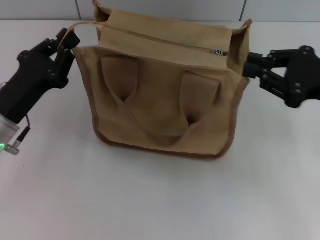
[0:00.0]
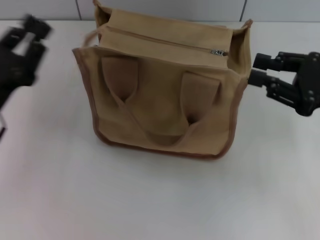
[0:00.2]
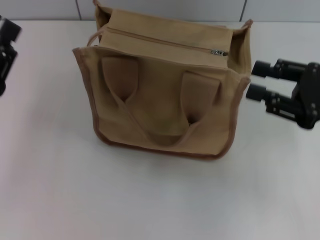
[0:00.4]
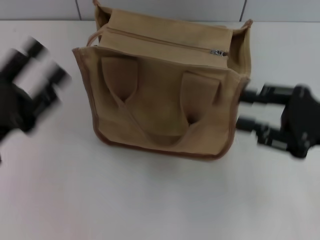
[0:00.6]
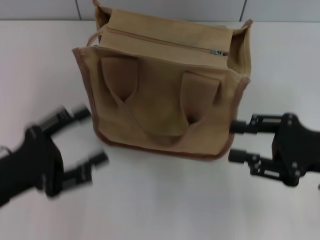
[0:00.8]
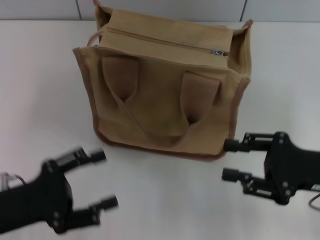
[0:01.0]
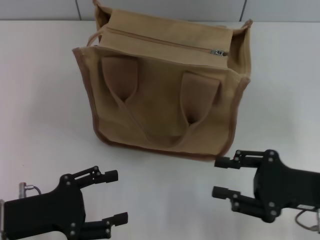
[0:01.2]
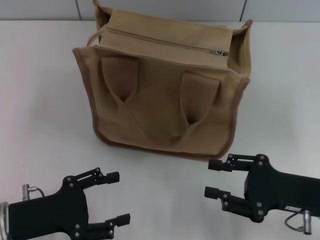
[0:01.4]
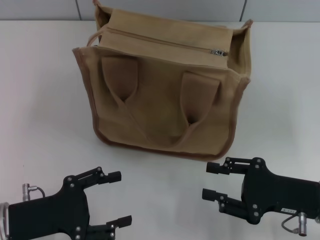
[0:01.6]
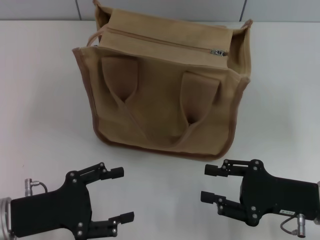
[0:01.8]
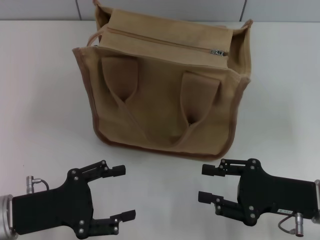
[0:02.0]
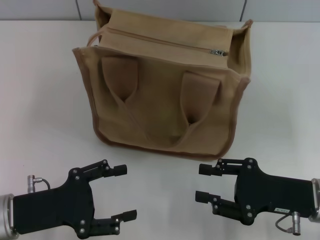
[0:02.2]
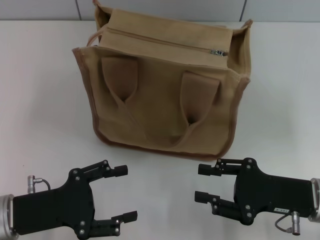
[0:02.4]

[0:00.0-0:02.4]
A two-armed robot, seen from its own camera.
0:00.0 to 0:01.2: The right gripper shifts approximately 10 cm downward and backward, and opens up. The left gripper travels backward by roughly 10 cm, and opens up.
0:01.2 to 0:02.4: The grippers make only small movements.

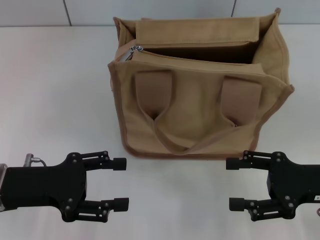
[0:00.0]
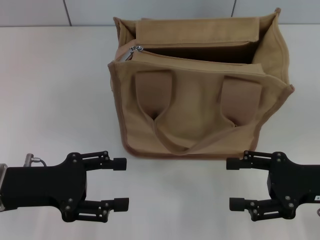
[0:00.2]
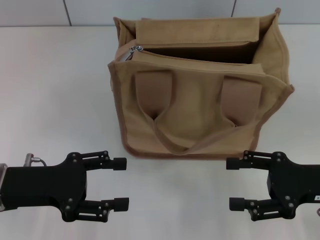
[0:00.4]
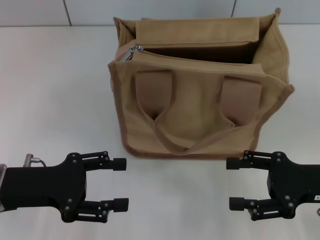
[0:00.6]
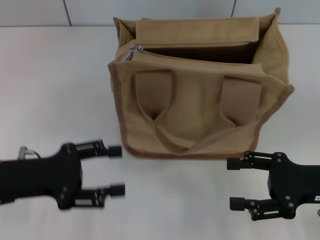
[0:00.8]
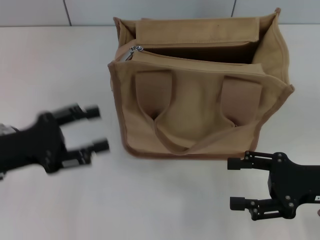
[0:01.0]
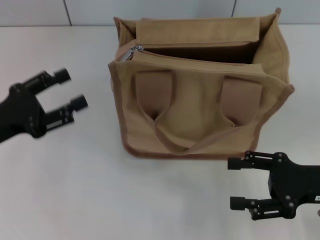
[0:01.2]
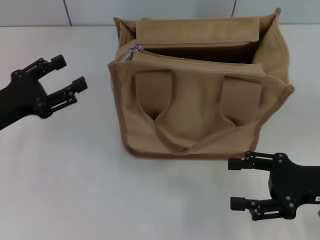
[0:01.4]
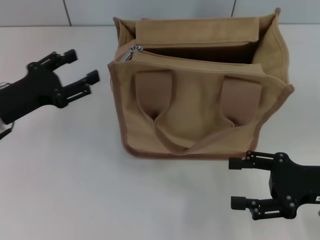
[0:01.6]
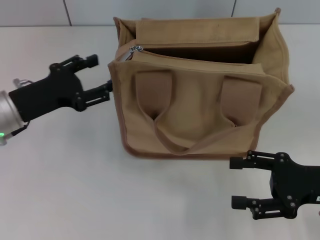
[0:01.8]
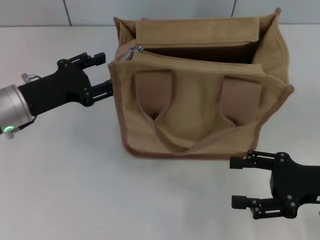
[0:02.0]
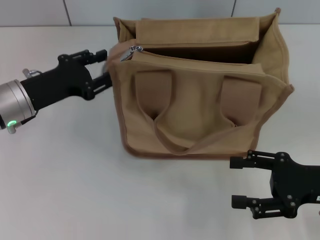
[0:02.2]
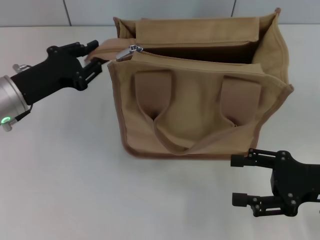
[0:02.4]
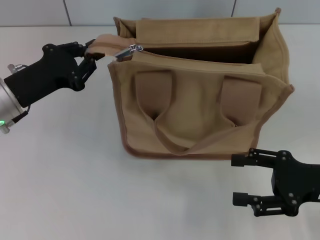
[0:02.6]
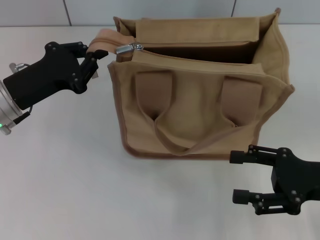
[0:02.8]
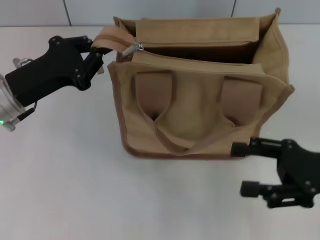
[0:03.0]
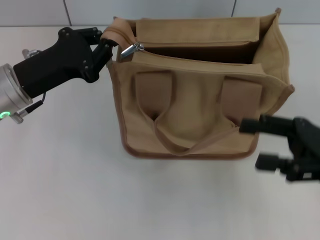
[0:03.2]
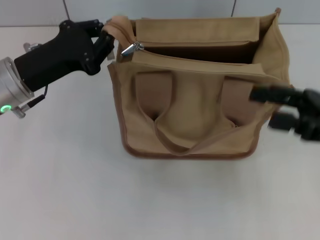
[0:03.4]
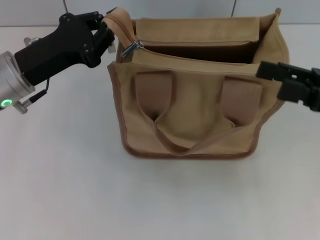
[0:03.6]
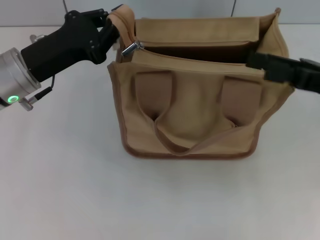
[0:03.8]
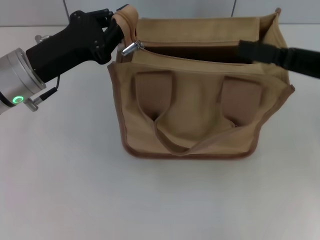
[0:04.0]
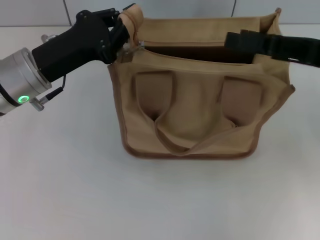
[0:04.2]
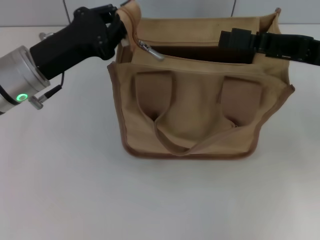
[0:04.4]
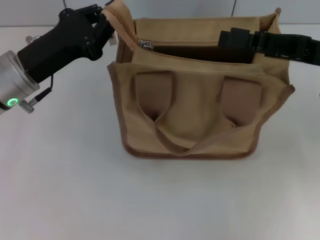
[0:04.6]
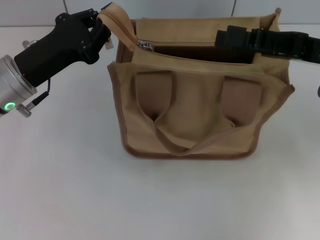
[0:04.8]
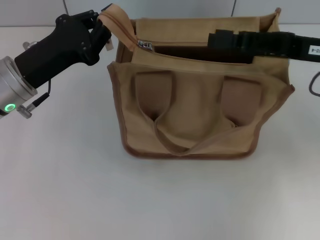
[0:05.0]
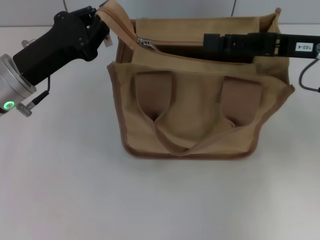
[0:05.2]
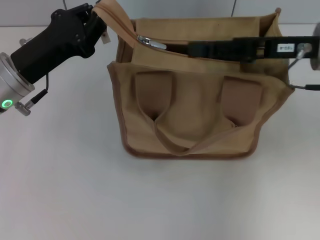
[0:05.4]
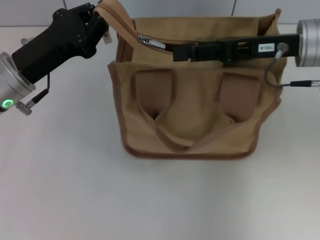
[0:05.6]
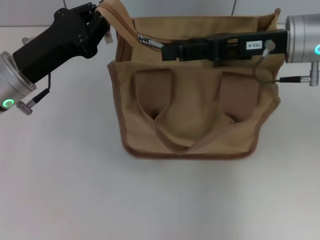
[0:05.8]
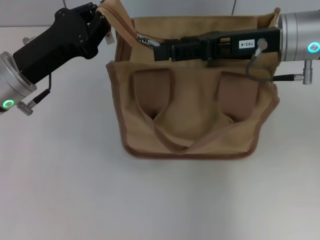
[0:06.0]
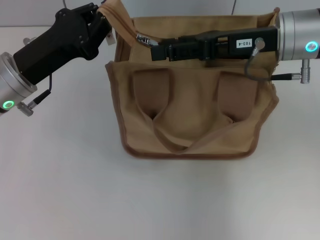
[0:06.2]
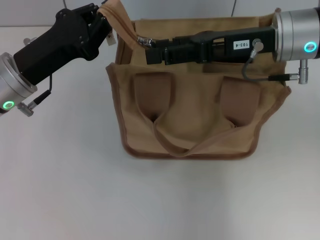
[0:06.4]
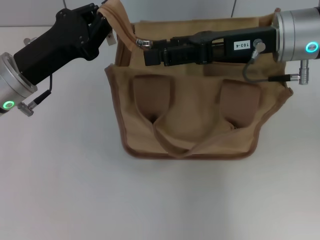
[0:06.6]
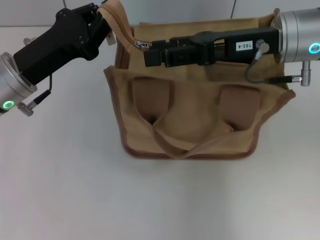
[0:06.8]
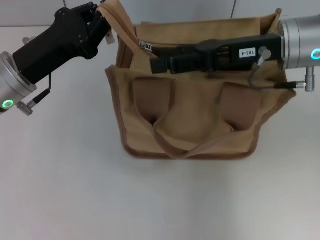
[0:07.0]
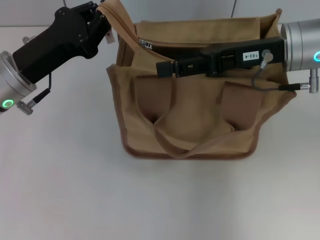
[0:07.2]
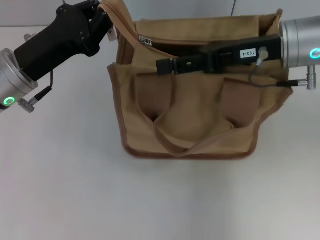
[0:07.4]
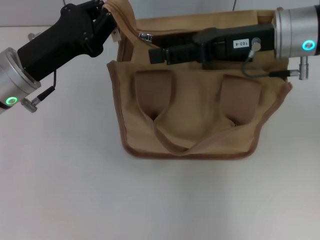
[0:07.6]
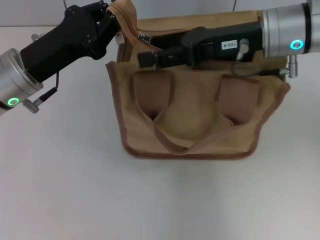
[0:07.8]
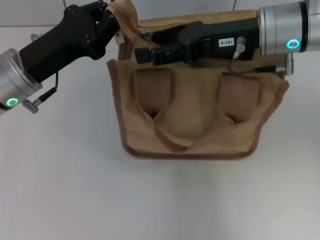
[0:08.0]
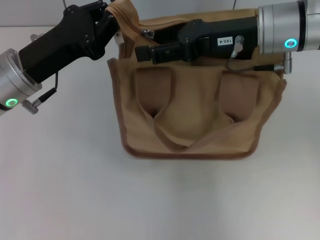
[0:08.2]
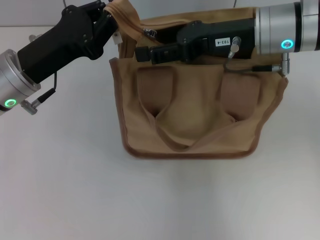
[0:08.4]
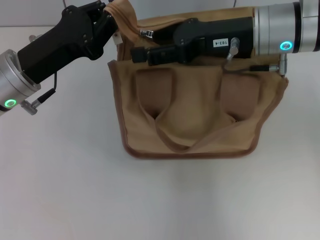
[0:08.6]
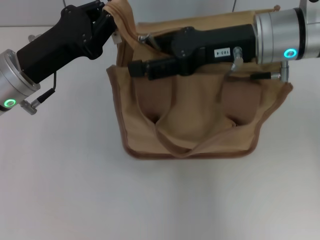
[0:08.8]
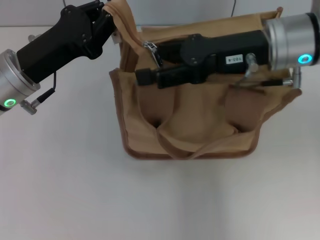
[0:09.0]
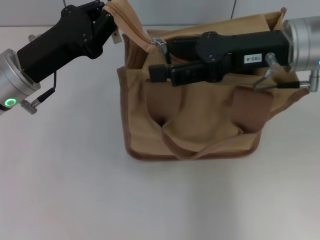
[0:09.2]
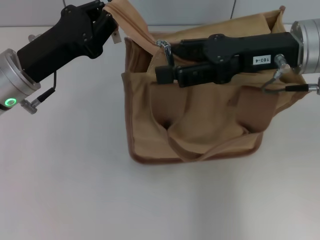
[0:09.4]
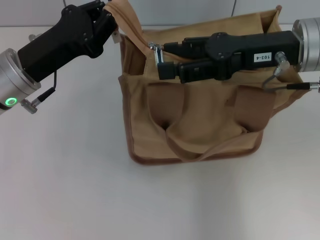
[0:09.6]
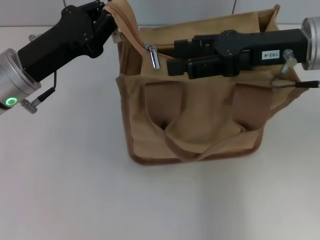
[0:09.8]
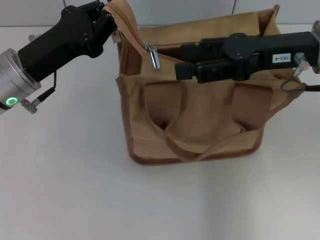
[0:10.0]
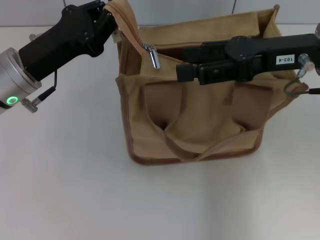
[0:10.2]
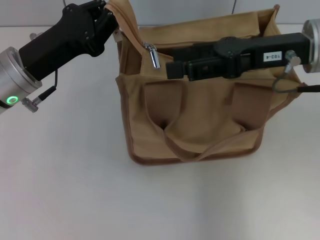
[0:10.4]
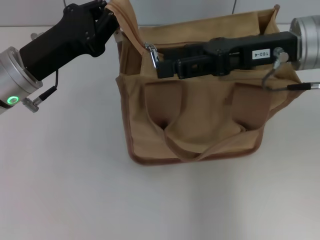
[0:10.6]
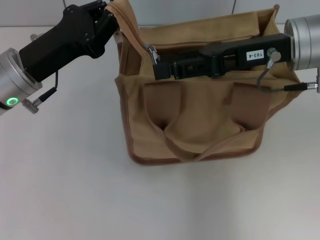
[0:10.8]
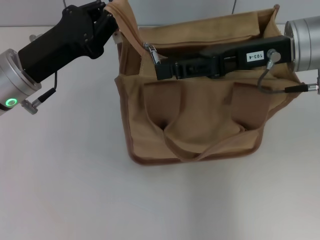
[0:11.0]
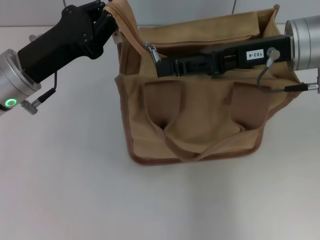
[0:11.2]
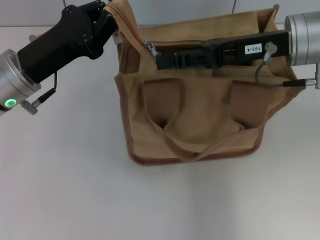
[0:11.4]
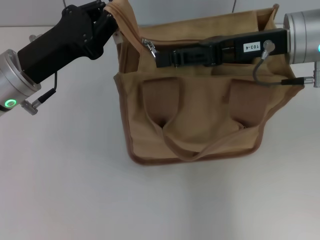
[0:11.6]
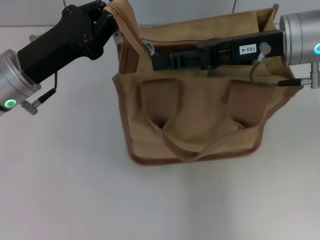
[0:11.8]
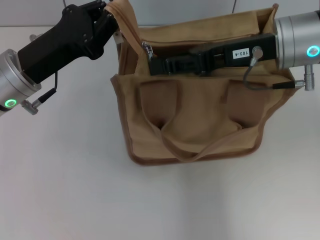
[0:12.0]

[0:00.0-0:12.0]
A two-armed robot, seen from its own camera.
0:00.0 to 0:01.6: The left gripper heads forward, covering some 5 cm.
0:01.6 to 0:03.0: The left gripper closes up.
0:03.0 to 0:04.4: The right gripper goes some 10 cm forward and upward.
0:04.4 to 0:06.0: The right gripper moves to the left, approximately 5 cm.
0:06.0 to 0:10.4: The grippers stay close to where they were, moving slightly.
0:10.4 to 0:12.0: The right gripper closes.

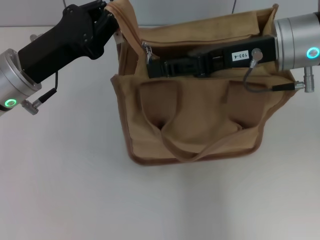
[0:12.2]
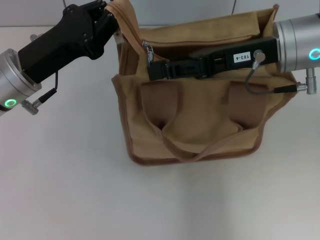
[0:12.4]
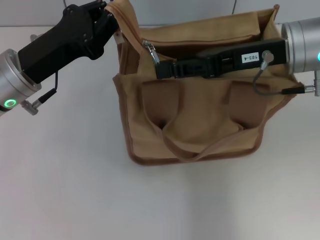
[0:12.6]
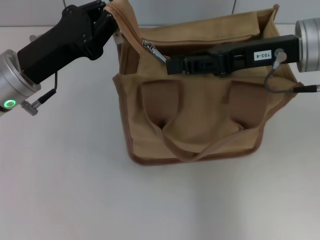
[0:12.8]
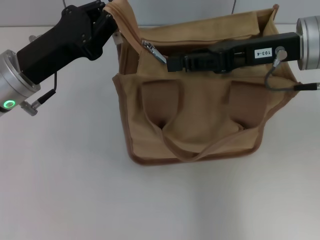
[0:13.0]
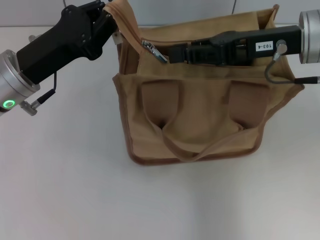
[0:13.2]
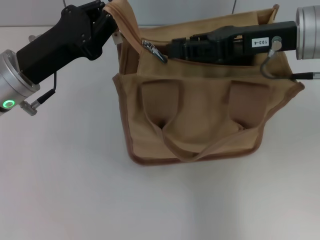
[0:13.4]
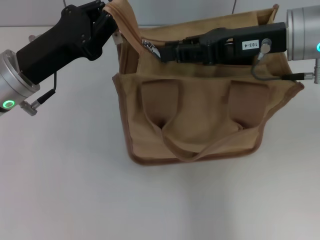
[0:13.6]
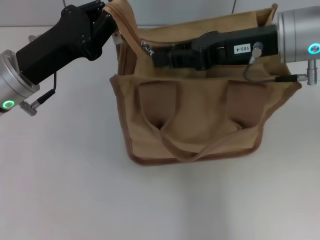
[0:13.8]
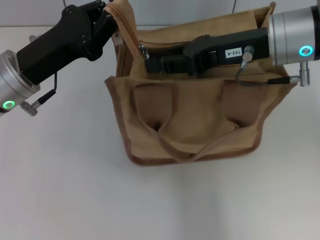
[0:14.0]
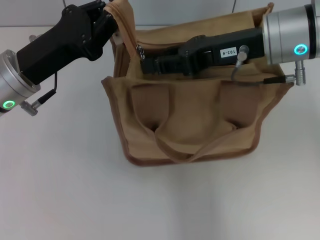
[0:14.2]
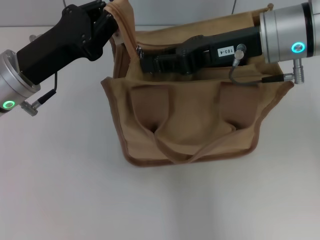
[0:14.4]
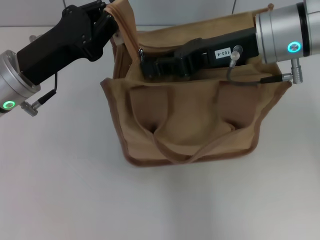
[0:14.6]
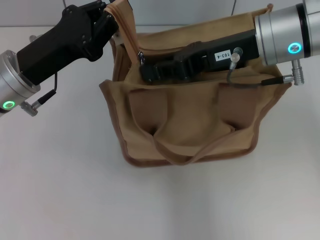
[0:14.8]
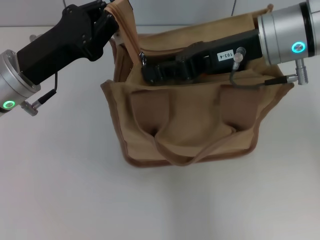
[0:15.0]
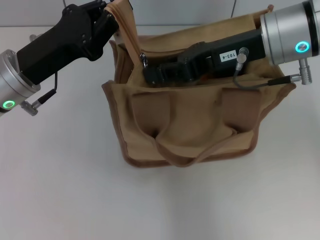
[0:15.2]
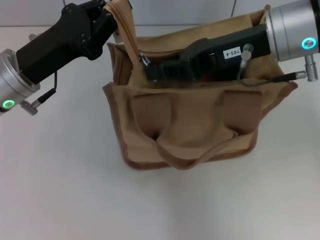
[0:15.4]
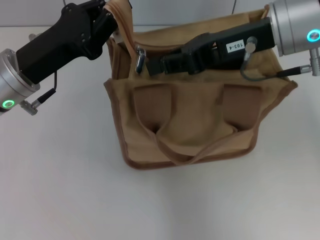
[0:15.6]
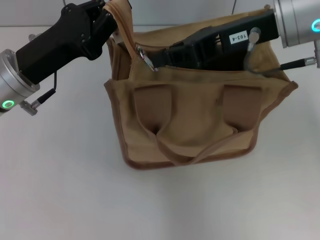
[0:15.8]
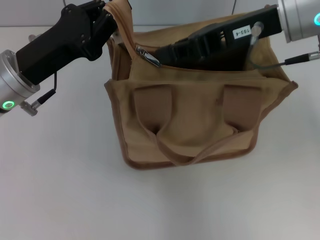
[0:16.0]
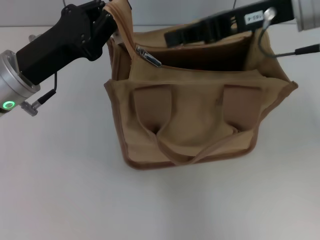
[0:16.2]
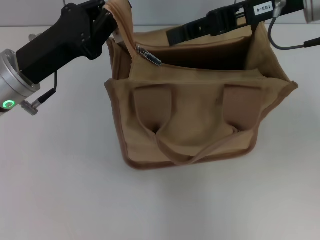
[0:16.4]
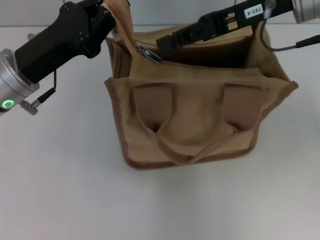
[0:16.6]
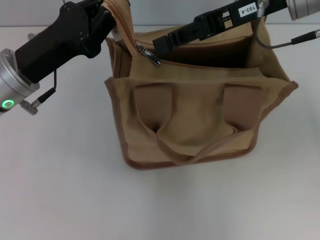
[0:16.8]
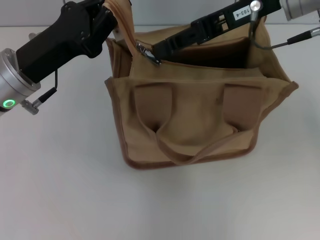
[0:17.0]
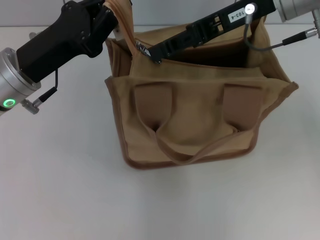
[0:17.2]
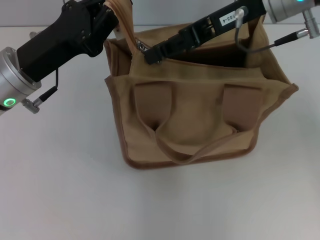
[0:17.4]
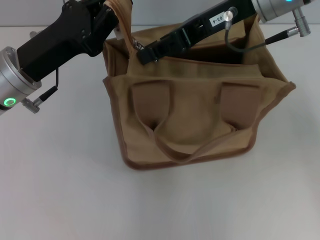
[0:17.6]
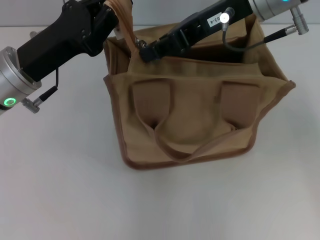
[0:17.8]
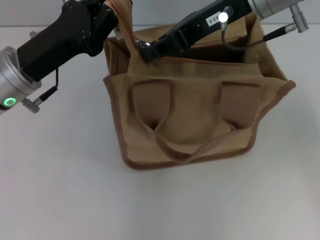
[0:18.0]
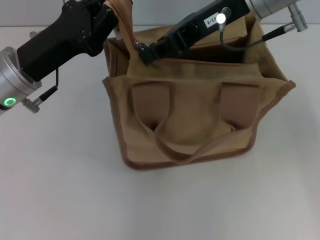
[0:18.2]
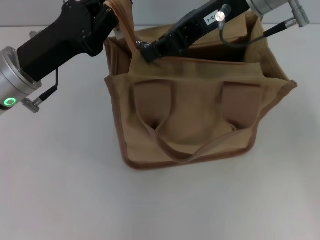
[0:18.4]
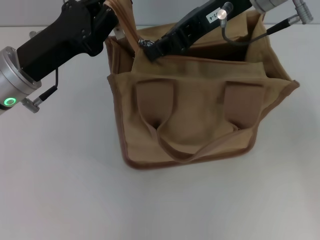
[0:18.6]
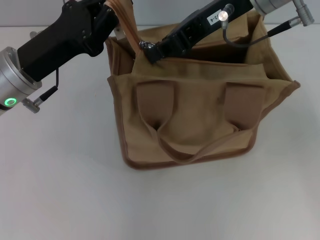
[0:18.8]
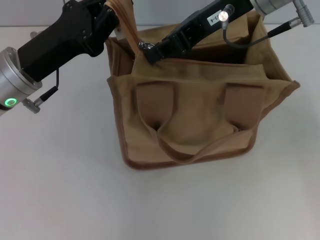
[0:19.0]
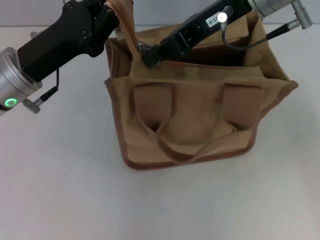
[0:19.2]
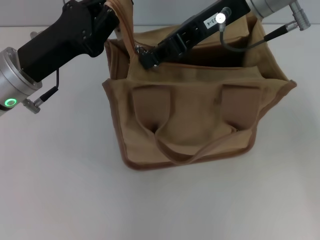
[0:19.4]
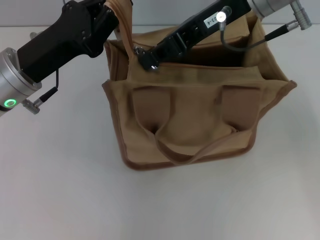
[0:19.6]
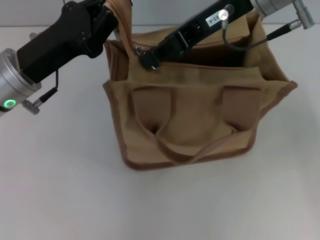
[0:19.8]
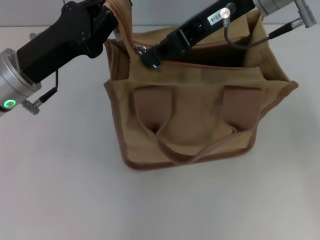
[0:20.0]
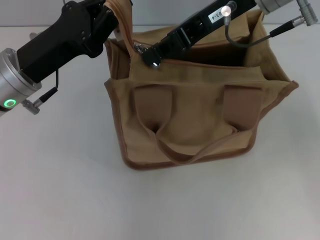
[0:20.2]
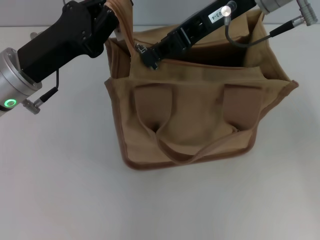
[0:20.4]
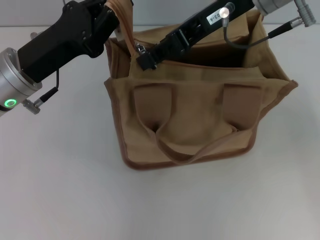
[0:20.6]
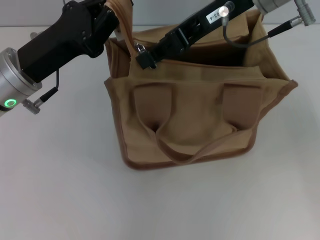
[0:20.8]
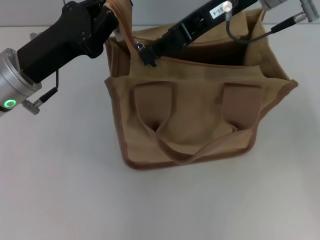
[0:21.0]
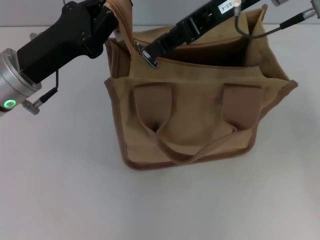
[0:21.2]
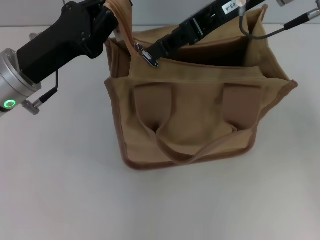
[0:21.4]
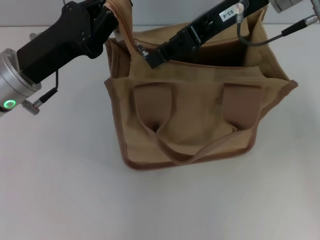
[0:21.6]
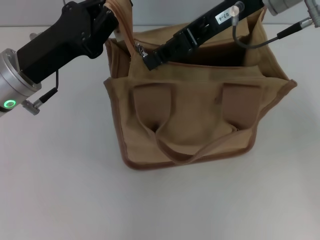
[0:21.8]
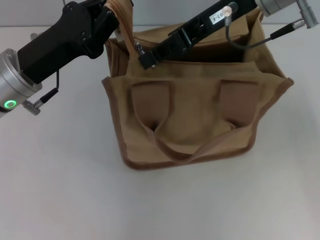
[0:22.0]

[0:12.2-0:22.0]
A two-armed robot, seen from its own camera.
0:12.2 to 0:15.0: The grippers move only a little.
0:15.0 to 0:16.4: The right gripper ends up roughly 5 cm from where it was.
0:16.4 to 0:17.8: The right gripper moves to the left, roughly 5 cm, and opens.
0:17.8 to 0:19.2: The right gripper closes.
0:19.2 to 0:20.6: The two grippers keep their place.
0:20.6 to 0:22.0: The grippers stay close to where they were, moving slightly.
